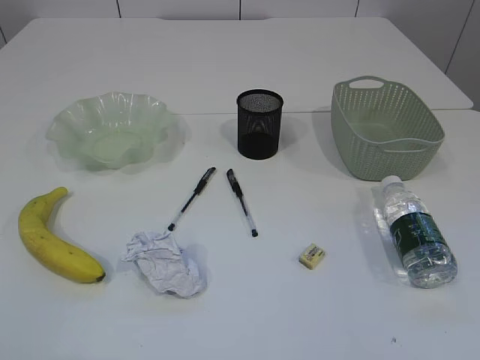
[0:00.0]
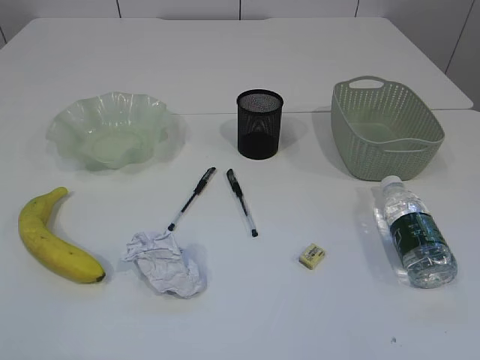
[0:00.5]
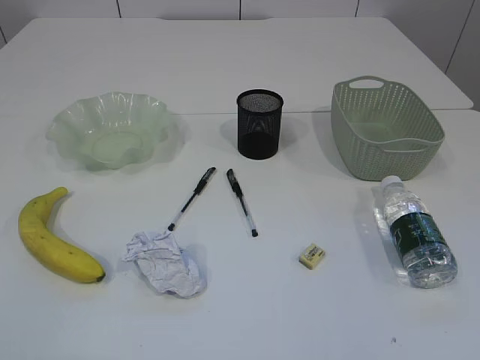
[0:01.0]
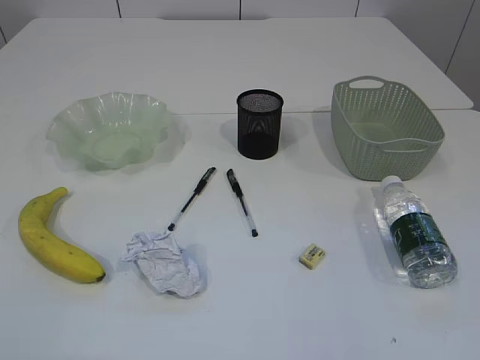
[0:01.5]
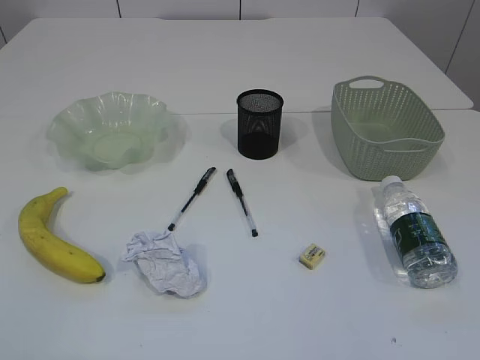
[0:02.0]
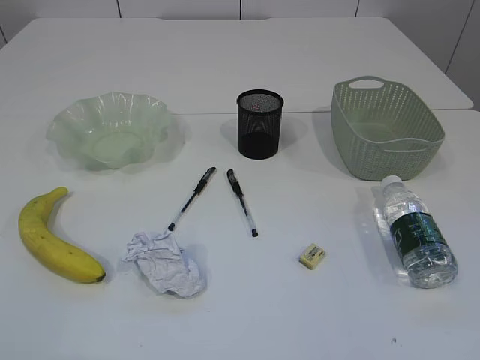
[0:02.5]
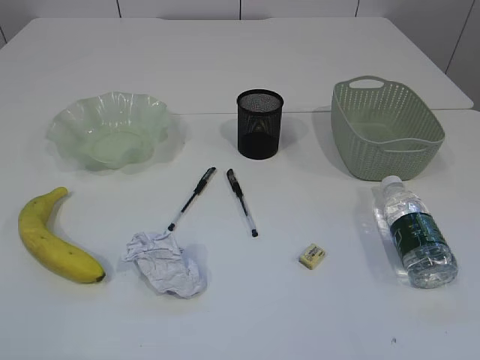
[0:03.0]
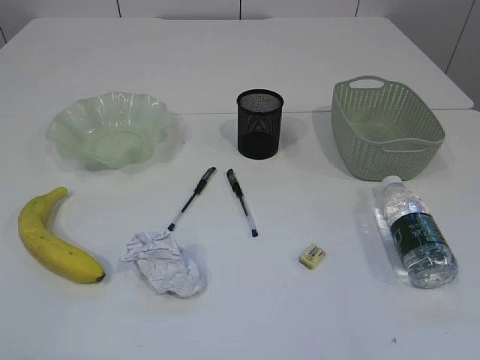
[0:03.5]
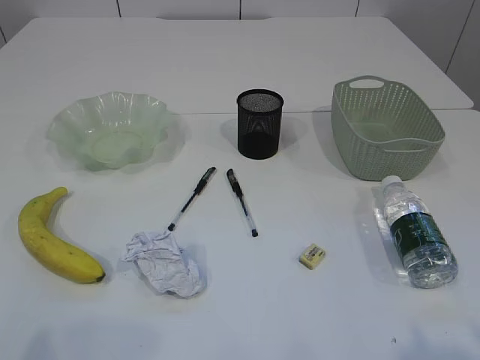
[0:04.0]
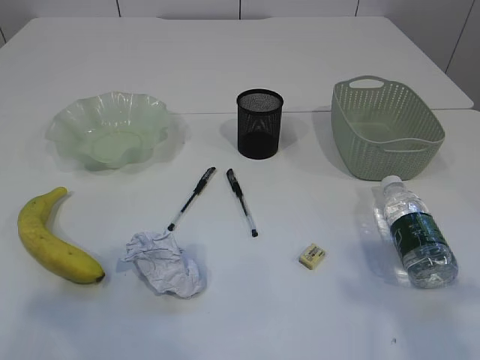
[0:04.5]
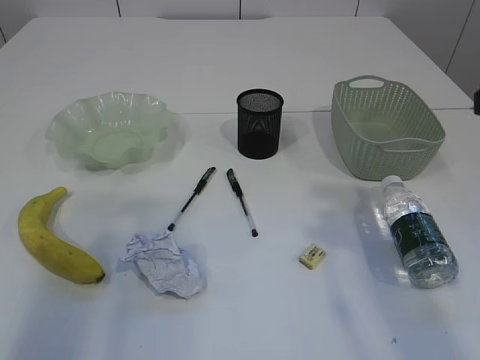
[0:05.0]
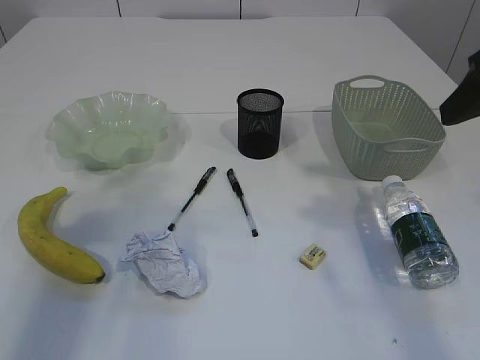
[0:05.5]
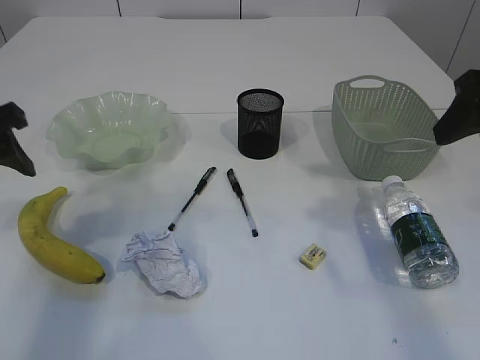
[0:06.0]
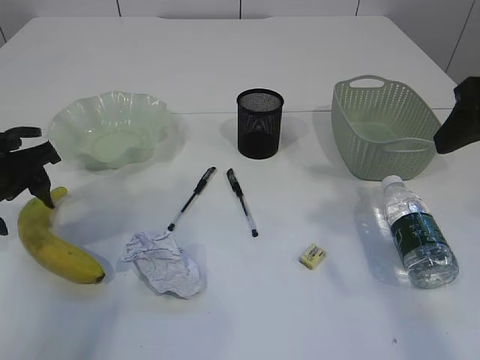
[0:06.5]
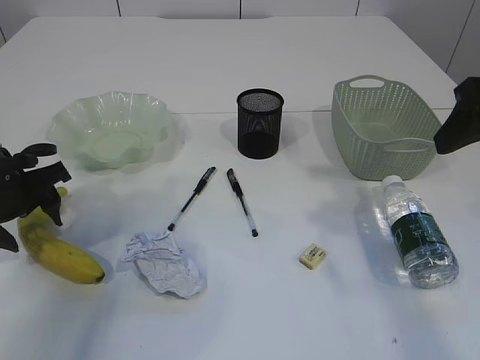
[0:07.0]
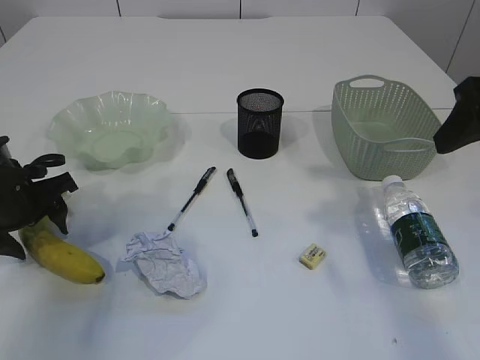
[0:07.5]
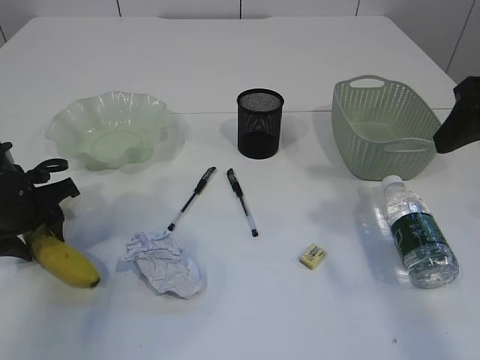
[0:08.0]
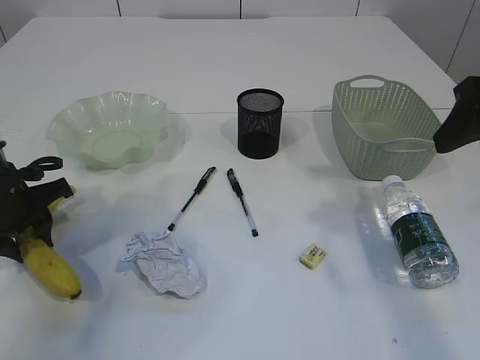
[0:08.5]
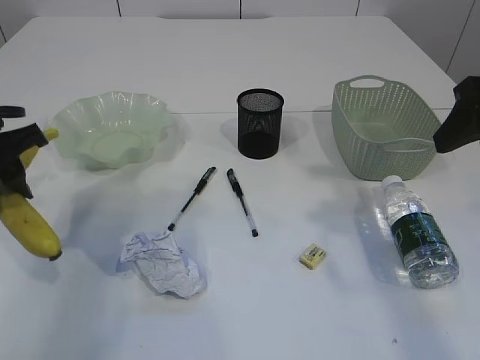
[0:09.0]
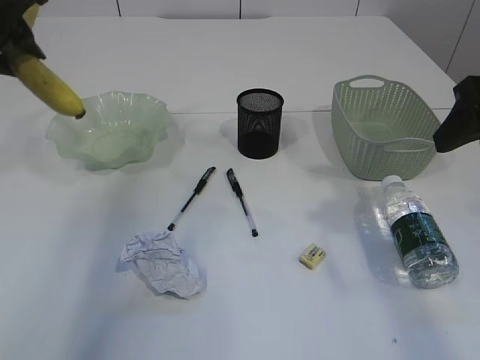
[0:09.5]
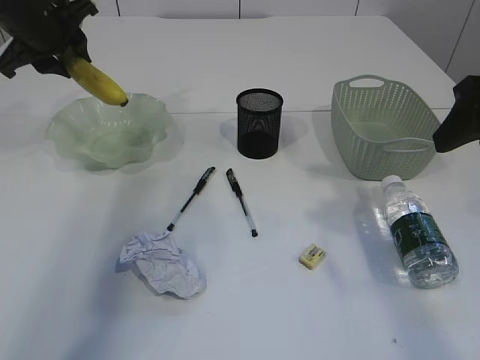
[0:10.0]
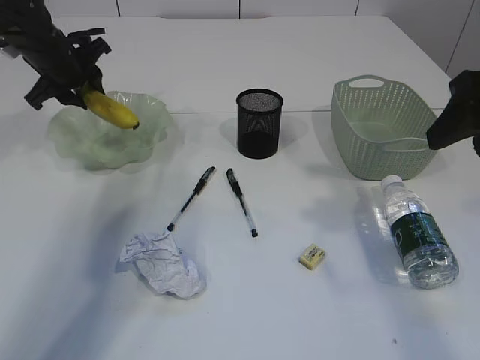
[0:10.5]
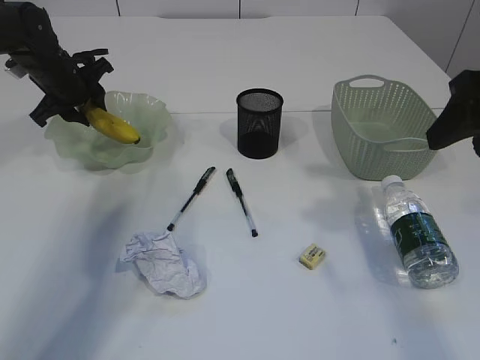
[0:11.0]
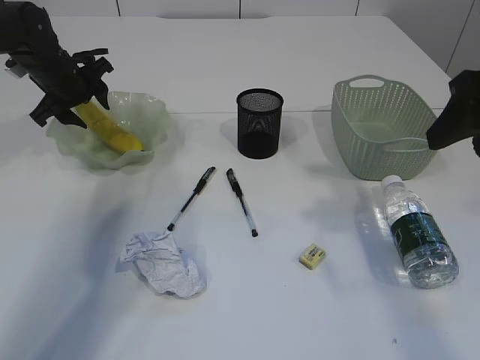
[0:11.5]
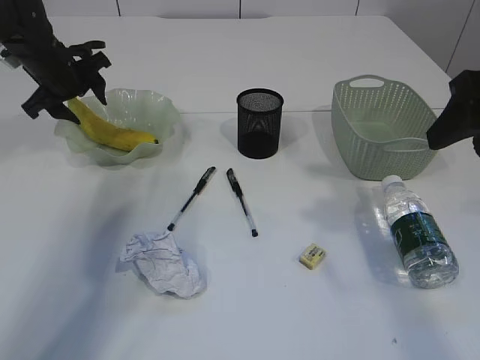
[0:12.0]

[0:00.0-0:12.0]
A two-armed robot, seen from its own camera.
0:04.0 to 0:06.0: The two grippers go approximately 25 cm forward. The left gripper opens its fingers.
0:06.0 to 0:08.0: The left gripper moves downward, about 15 cm.
0:08.0 to 0:10.0: The left gripper travels upward and forward by about 20 cm.
0:10.0 to 0:12.0: The left gripper shifts roughly 10 cm downward and forward, and opens its fingers.

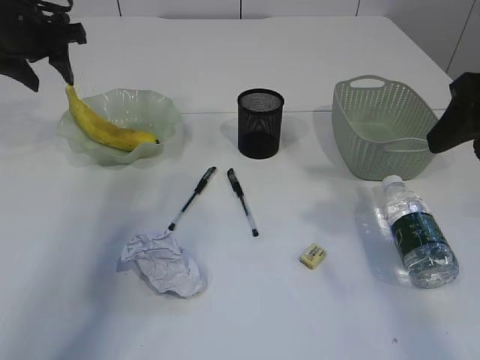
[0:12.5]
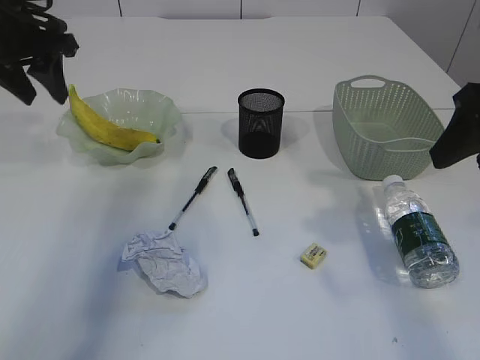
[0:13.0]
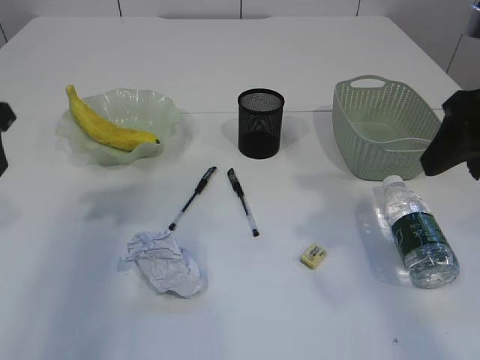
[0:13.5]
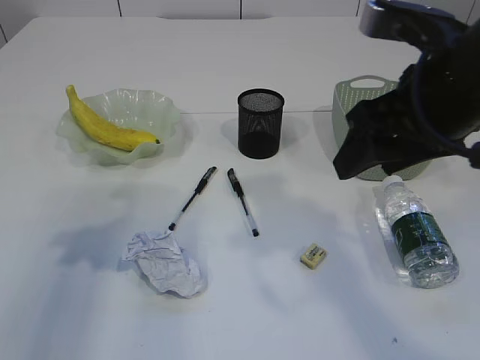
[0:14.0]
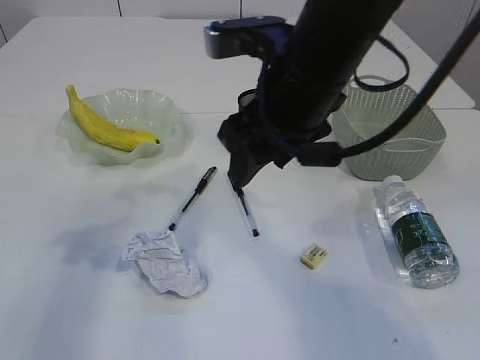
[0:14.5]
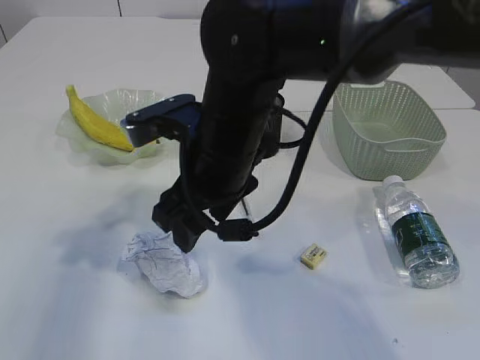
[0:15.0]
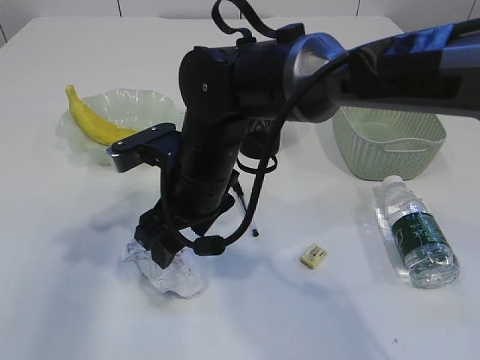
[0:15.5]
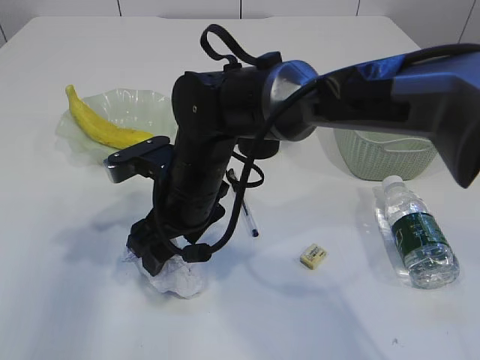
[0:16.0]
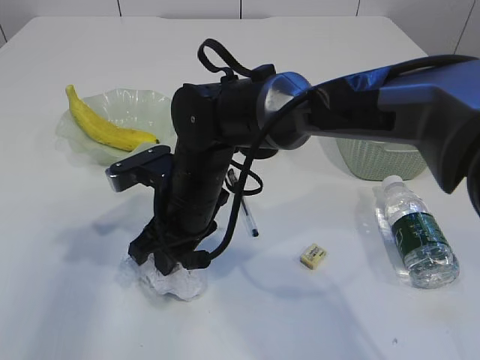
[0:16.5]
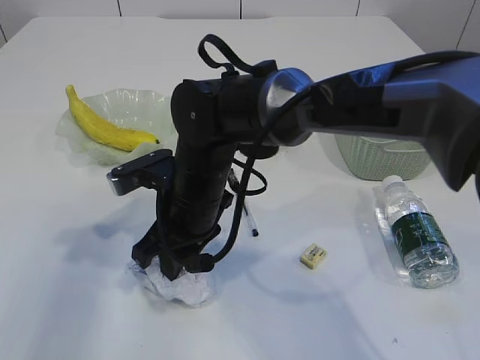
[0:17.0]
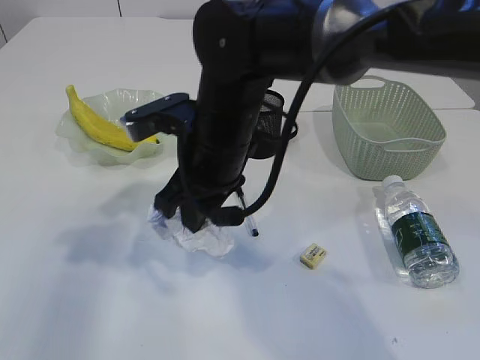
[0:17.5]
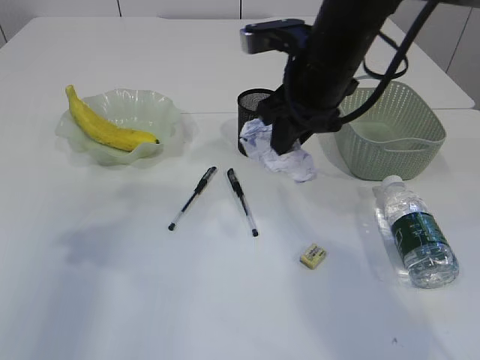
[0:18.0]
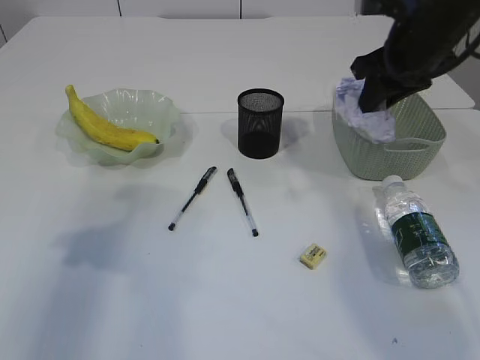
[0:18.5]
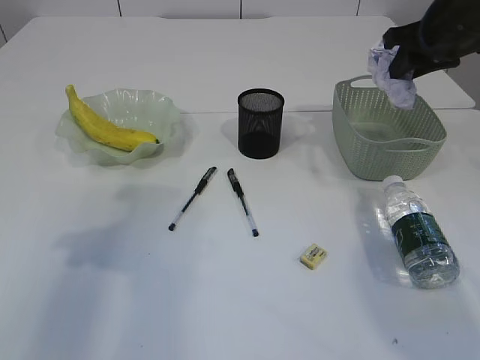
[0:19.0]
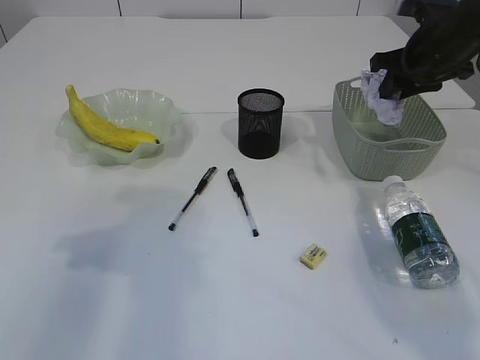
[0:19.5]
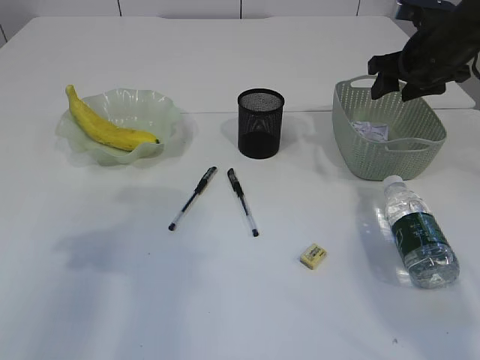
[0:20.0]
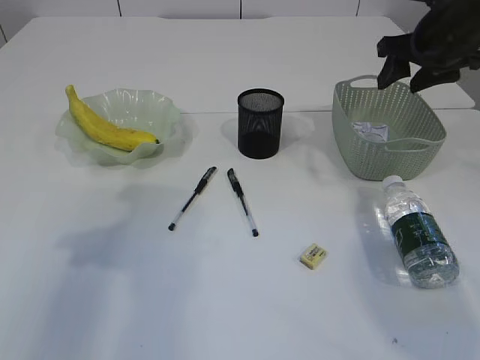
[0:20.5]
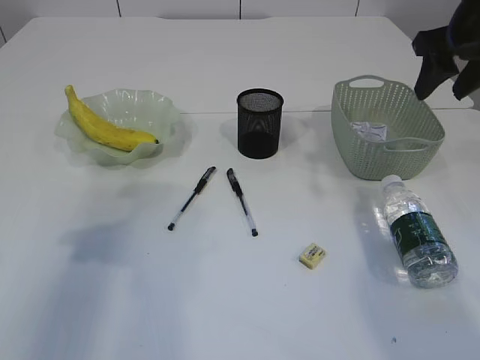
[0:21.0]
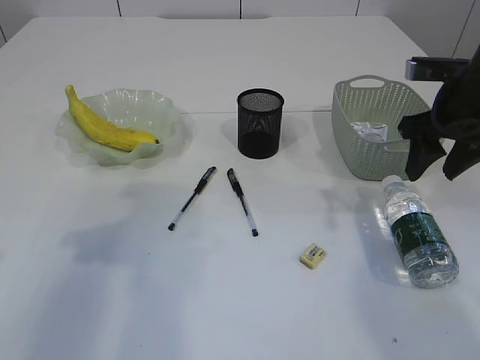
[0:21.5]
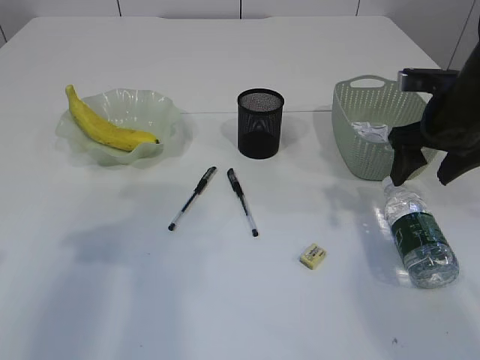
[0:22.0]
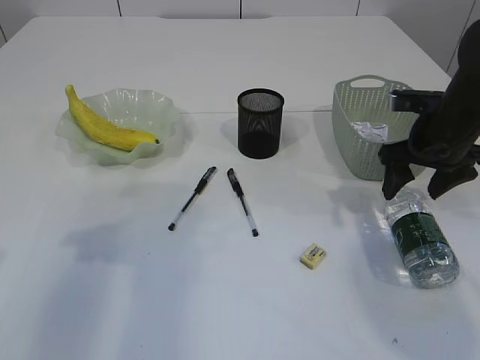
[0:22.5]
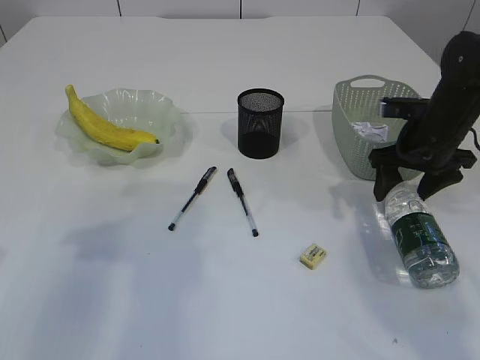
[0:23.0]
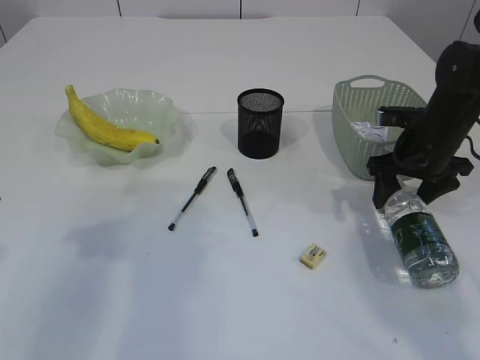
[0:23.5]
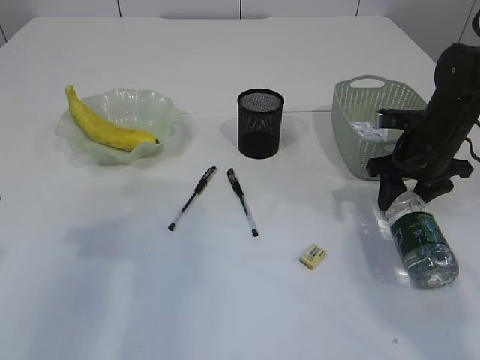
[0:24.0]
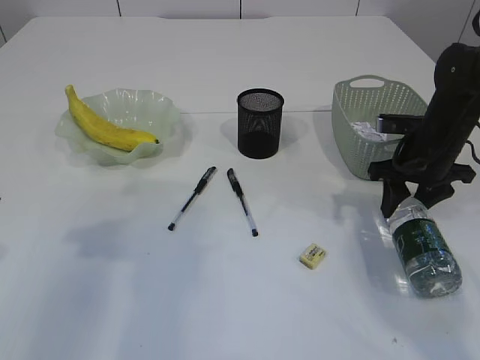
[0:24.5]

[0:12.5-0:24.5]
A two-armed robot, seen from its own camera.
Step, 0:13.0 to 0:17.5: Pick up the waste paper.
Step, 0:18.0 to 0:21.0: Place the waste paper in the basket.
0:12.5 to 0:14.5: The left gripper moves backward, some 25 cm. Meanwhile the right gripper heads to the left, covering approximately 20 cm.
0:14.5 to 0:16.5: The right gripper is displaced downward and to the left by roughly 20 cm.
0:16.5 to 0:18.5: The right gripper travels to the right and upward by roughly 30 cm.
0:18.5 to 0:20.5: The right gripper is displaced to the right by approximately 5 cm, and opens its fingers.
0:20.5 to 0:22.5: The right gripper moves downward and backward, about 10 cm.
0:22.5 to 0:24.5: The right gripper closes.

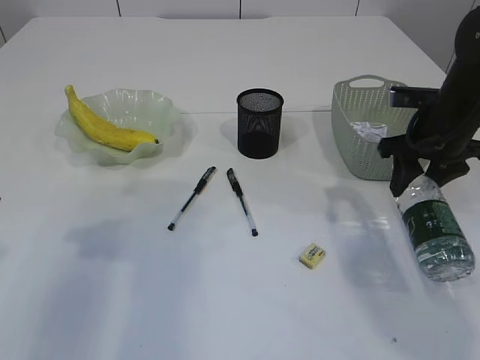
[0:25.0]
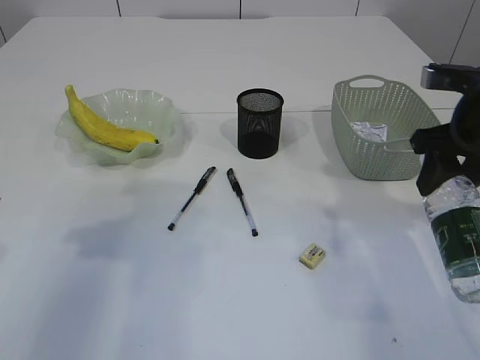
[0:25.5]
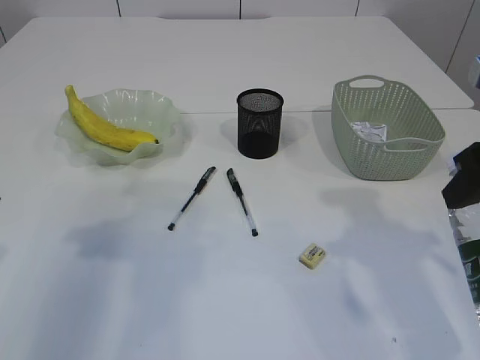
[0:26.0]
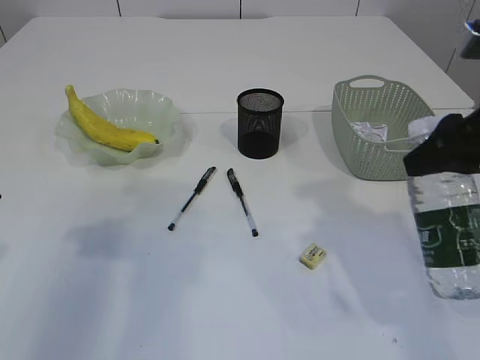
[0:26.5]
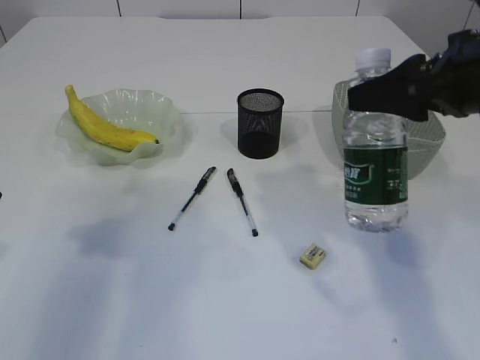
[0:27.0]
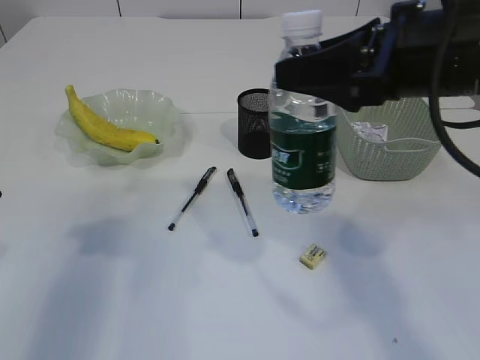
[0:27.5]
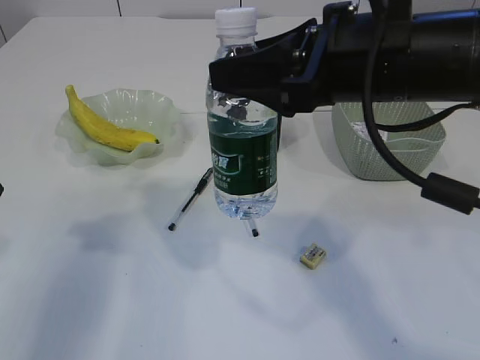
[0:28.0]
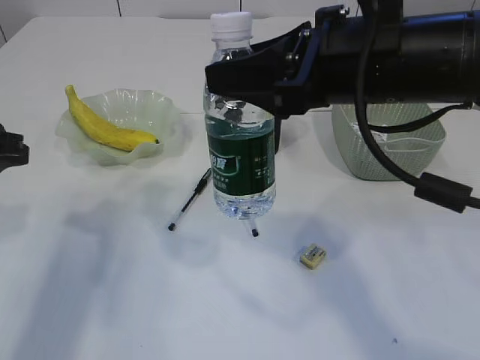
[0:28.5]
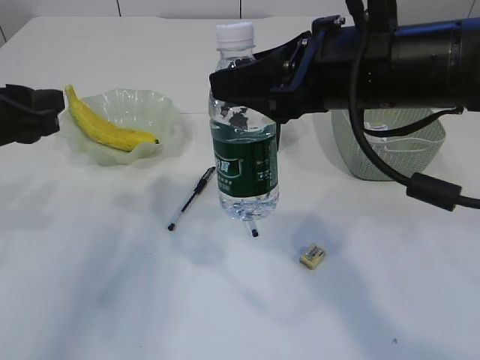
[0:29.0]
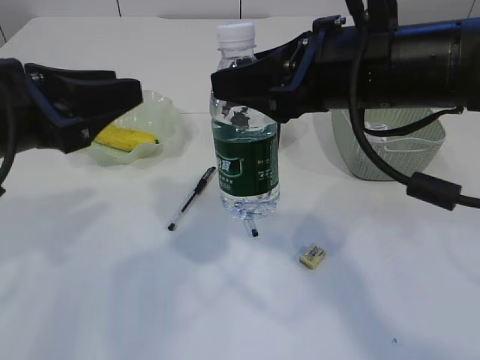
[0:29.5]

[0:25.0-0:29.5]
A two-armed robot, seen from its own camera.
0:25.0 to 0:27.0: The right gripper travels backward and upward by approximately 15 cm.
0:27.0 to 0:29.5: The right gripper moves to the left, about 10 cm, while the left gripper travels to the right by approximately 10 cm.
